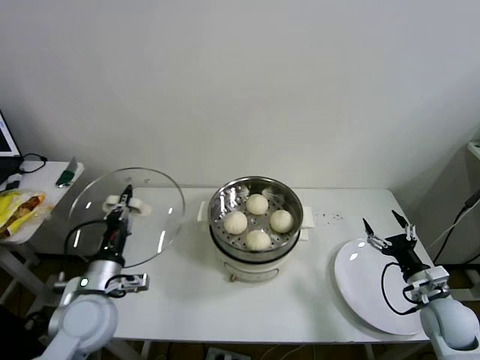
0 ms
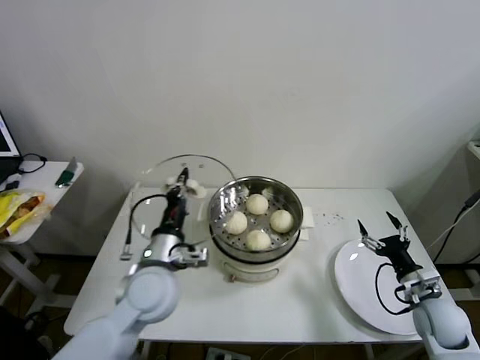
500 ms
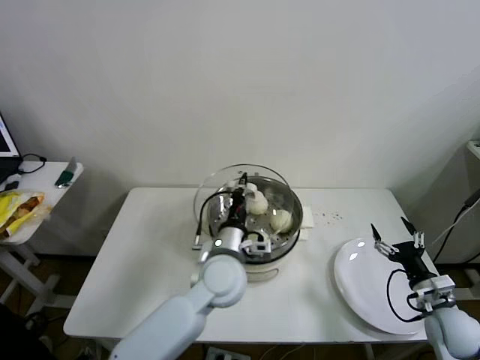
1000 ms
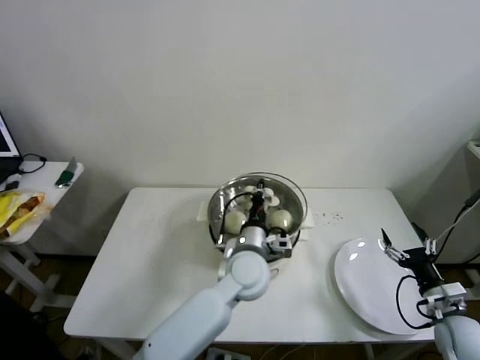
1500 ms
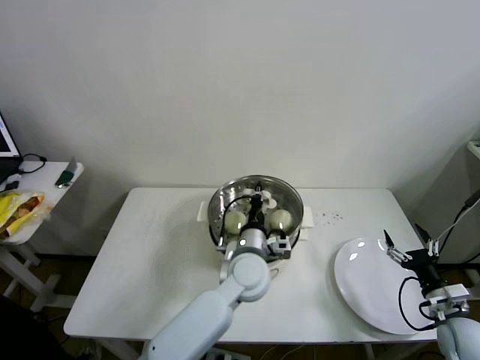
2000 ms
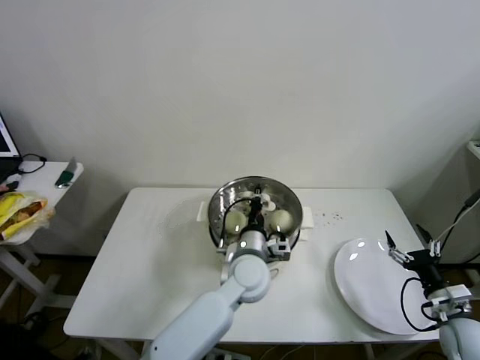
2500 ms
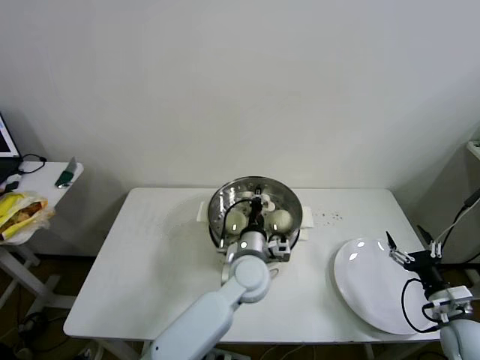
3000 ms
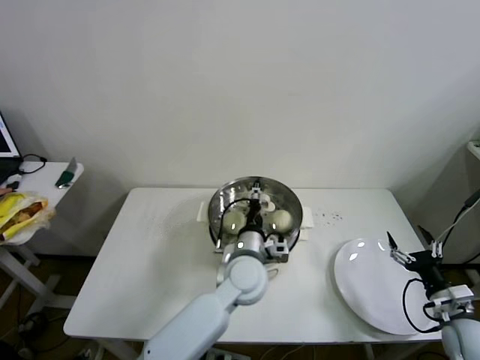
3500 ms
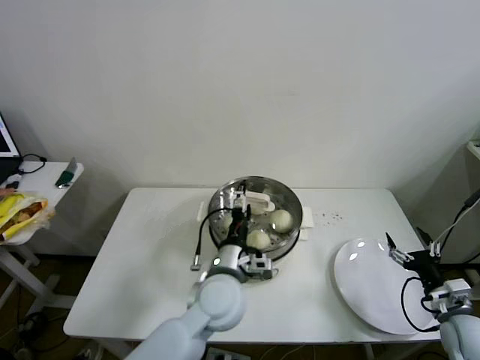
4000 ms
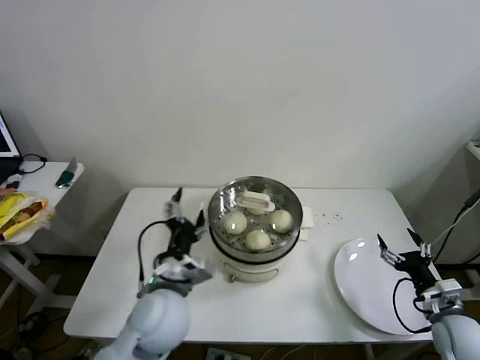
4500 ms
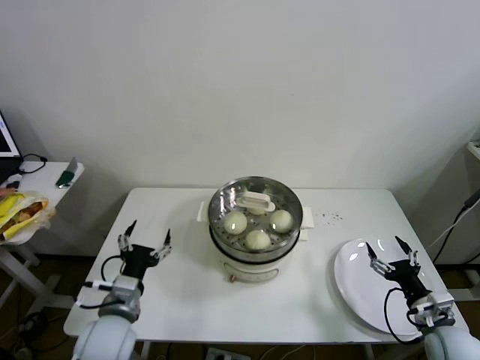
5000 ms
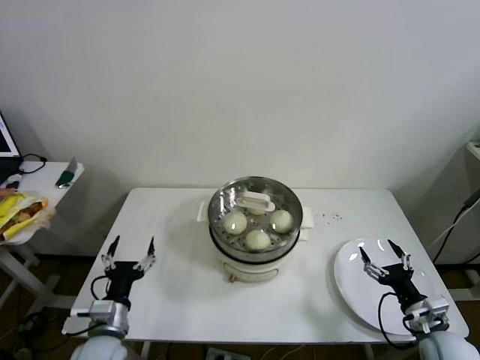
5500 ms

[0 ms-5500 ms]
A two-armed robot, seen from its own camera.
Step, 0 ms to 3000 ms: Place the pot lid on the steamer with left gripper.
0 ms to 2000 ms: The left gripper is displaced to the right by roughly 30 cm.
2000 ms to 3500 ms: The left gripper opens.
3500 ms to 5500 ms: The right gripper goes approximately 5 cm to the left, while the left gripper moves to the left and backward, some 30 cm, and opens its fingers.

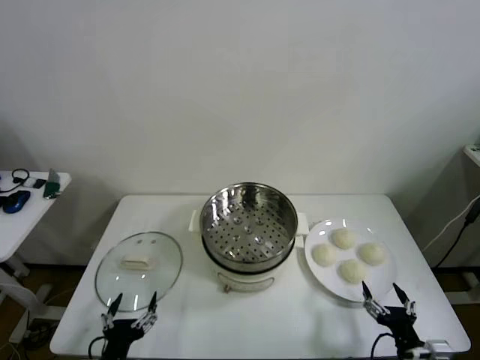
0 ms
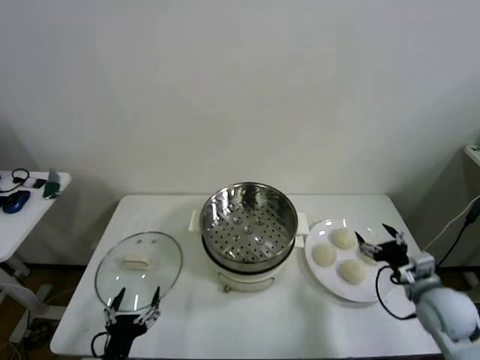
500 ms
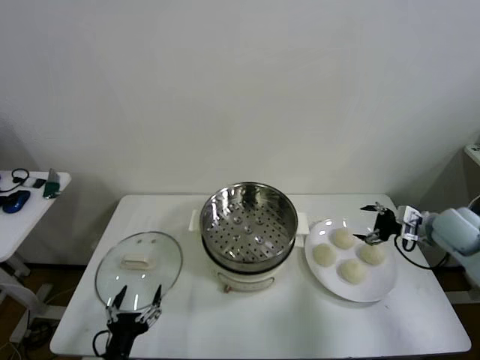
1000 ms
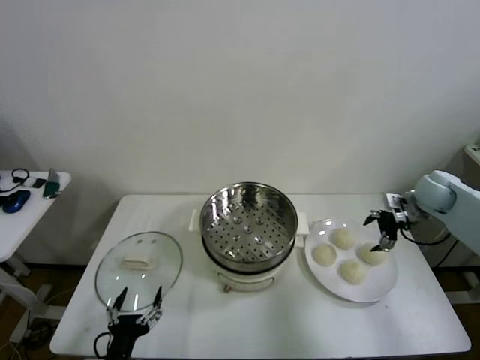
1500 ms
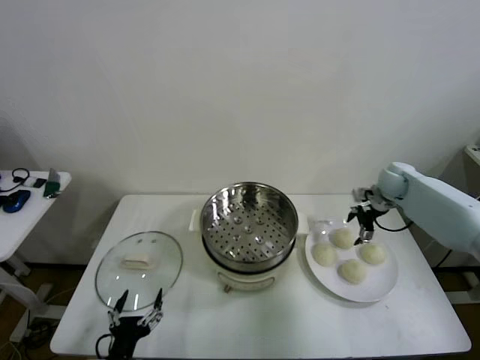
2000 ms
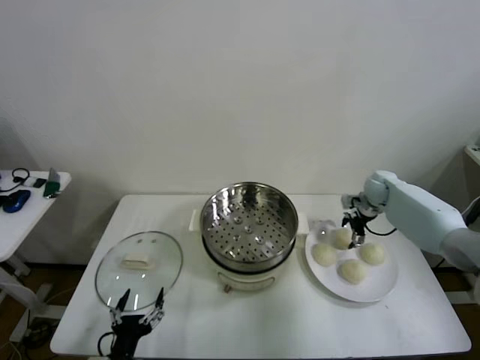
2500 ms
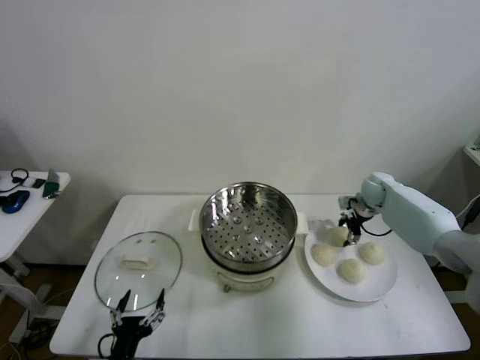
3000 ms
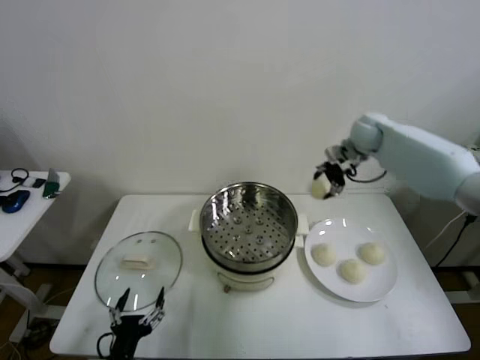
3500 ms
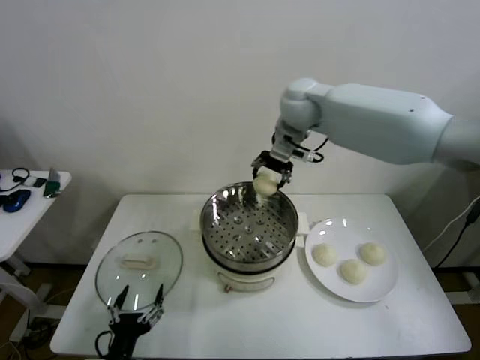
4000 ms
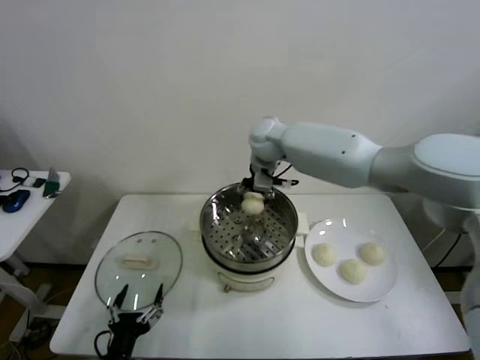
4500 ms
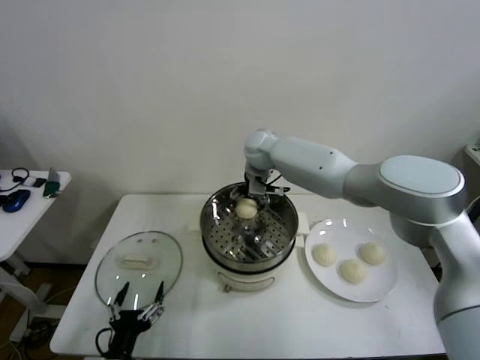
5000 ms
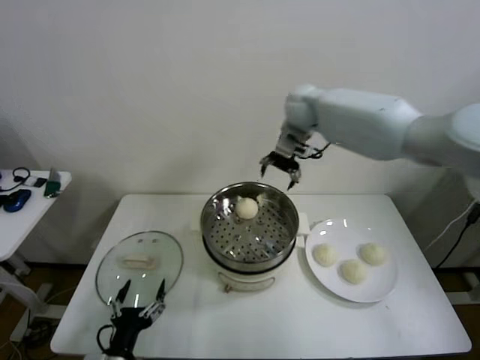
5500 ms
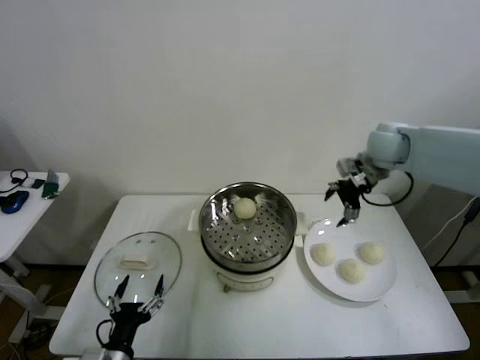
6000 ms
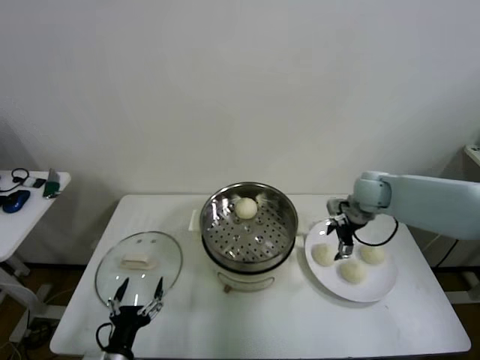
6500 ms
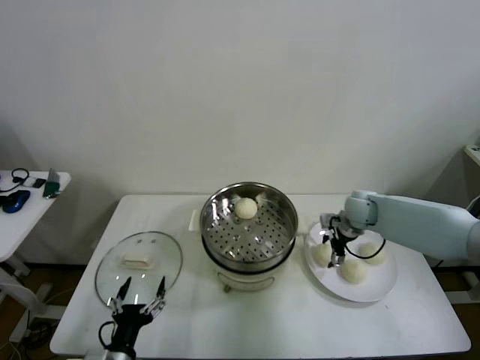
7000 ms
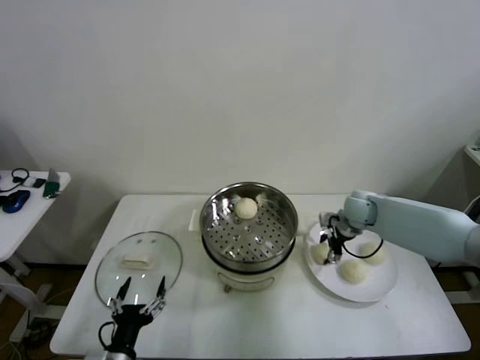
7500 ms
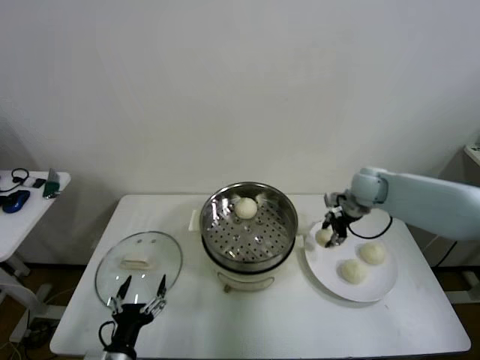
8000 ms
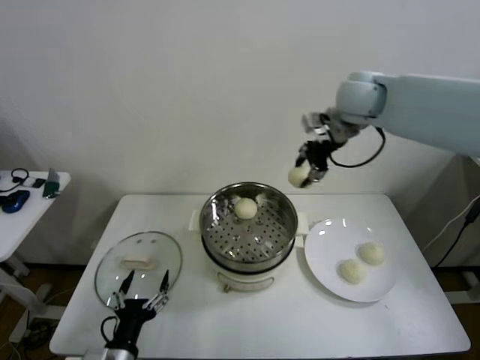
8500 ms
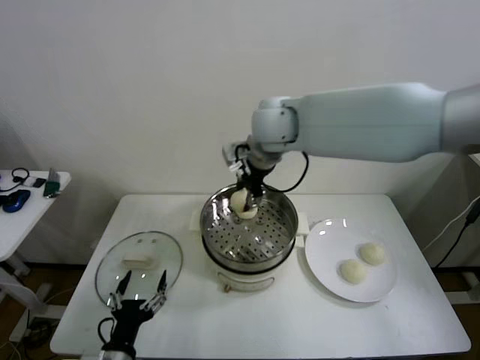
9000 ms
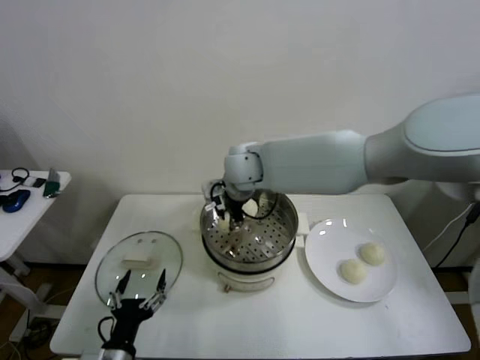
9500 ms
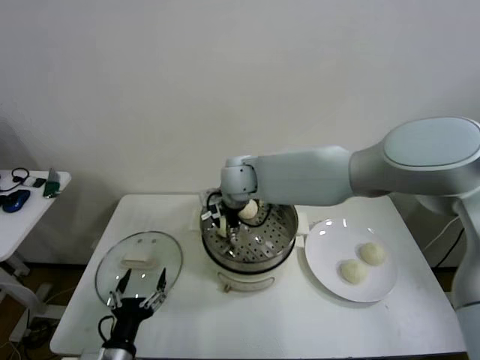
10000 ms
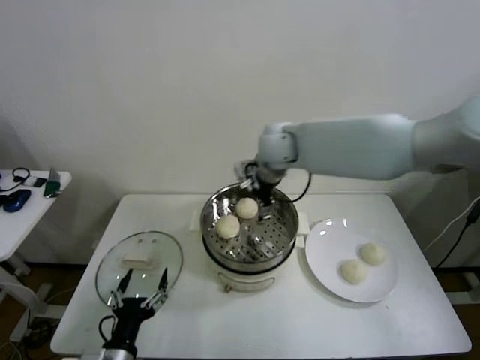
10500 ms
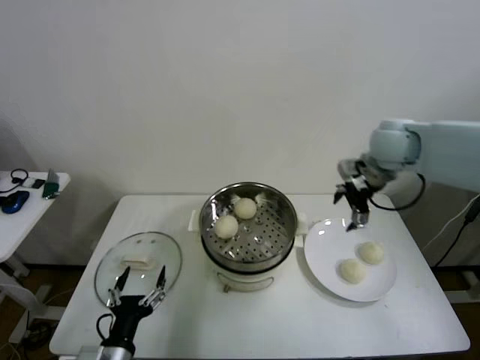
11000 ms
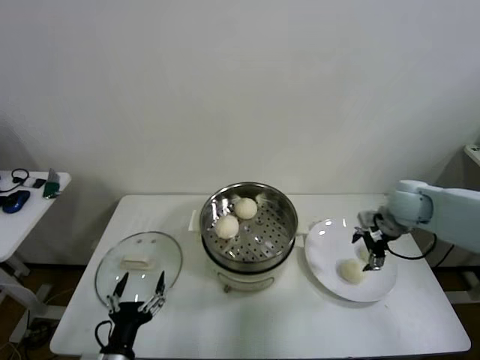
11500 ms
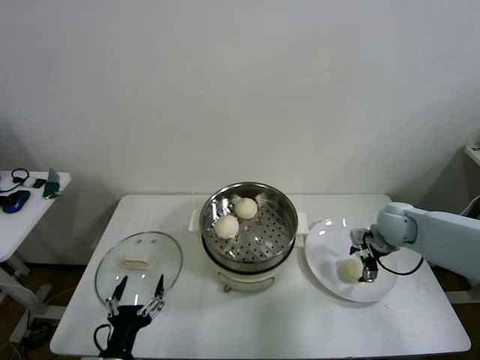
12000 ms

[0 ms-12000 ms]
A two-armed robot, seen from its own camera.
Step, 0 ms to 2500 ms: Grasp the baozi in the plate with right gripper.
Step, 3000 ms to 5000 ms: Place the baozi on the steamer with right gripper.
Step, 5500 ms to 7000 ms: Grasp the baozi in the plate with right gripper.
Step, 7500 ms to 10000 ms: Place the baozi on the steamer with right gripper.
2000 ms to 4000 ms: The right gripper travels to the left and upward by roughly 40 cm, and closes its fingers.
4000 ms to 6000 ms: The right gripper heads to the right and downward, covering some 25 cm, and opens its fingers.
6000 ms to 8000 ms: The right gripper is displaced downward by approximately 5 cm, and closes its fingers.
8000 ms to 10000 ms: The right gripper heads to the left, covering some 30 cm, and opens up.
10000 ms to 12000 ms: The right gripper is displaced to the right by approximately 35 cm, and opens up.

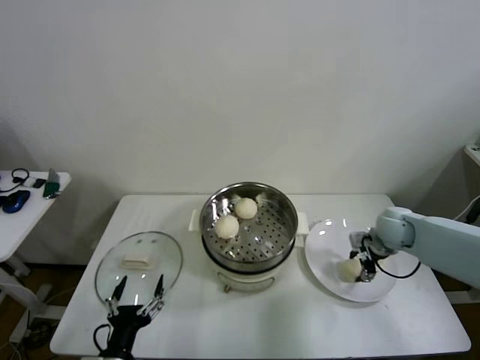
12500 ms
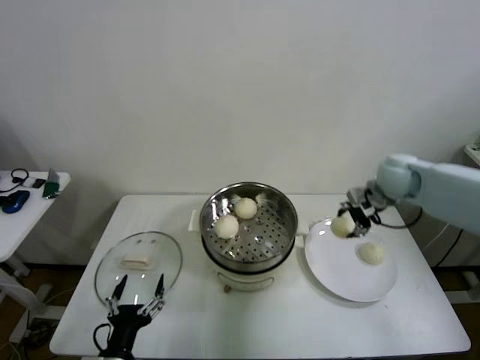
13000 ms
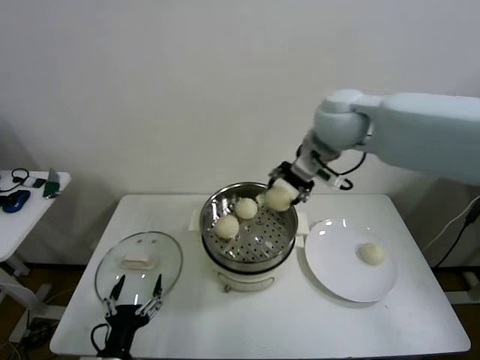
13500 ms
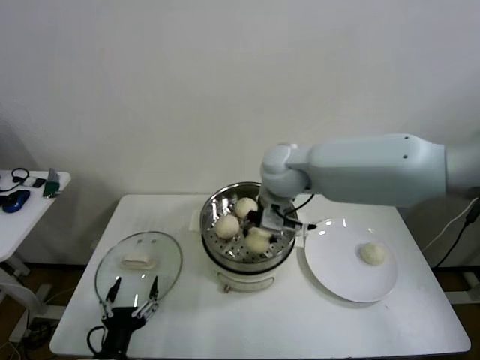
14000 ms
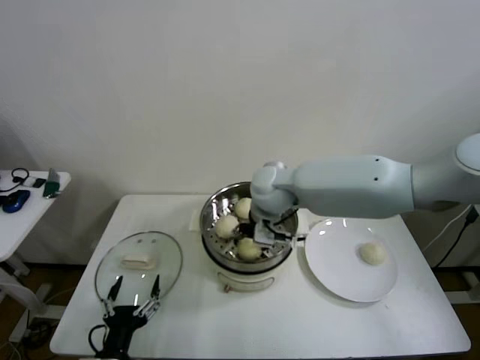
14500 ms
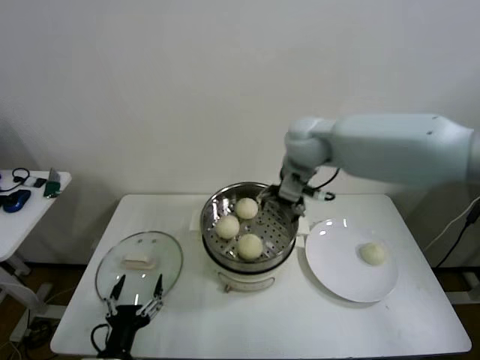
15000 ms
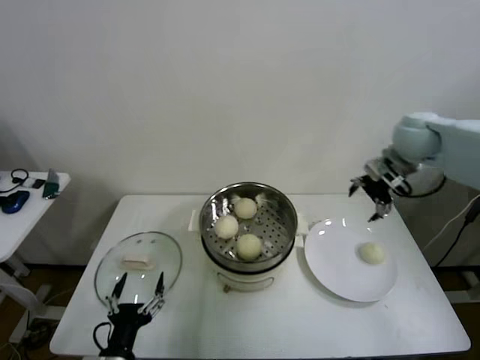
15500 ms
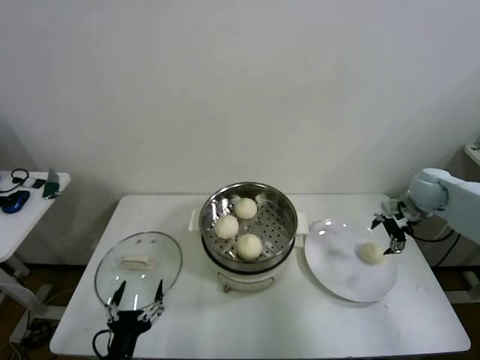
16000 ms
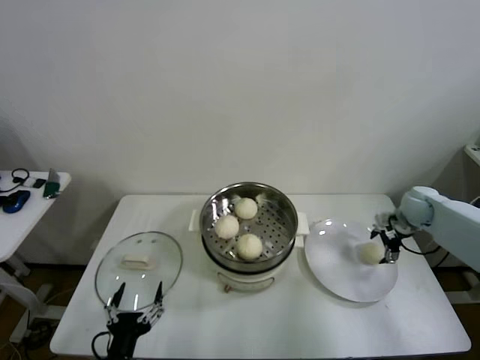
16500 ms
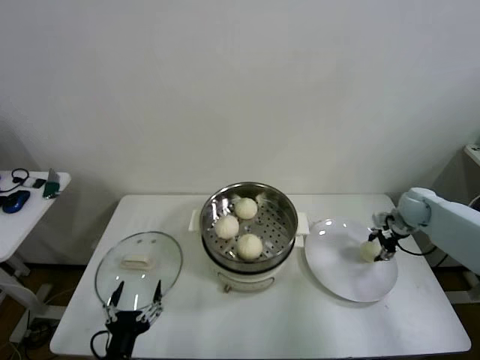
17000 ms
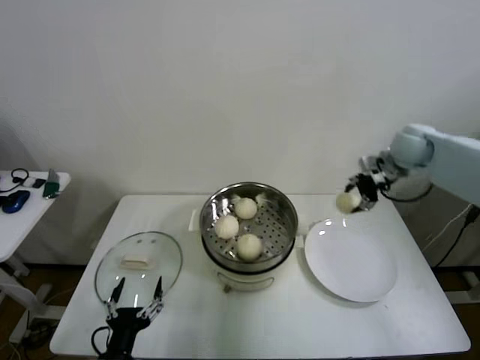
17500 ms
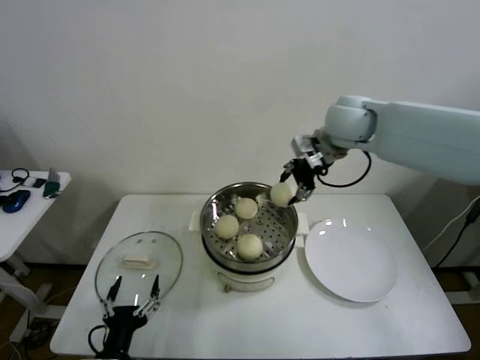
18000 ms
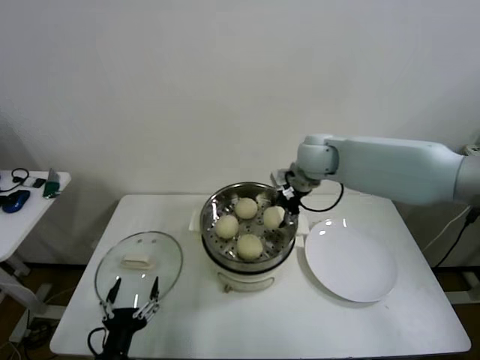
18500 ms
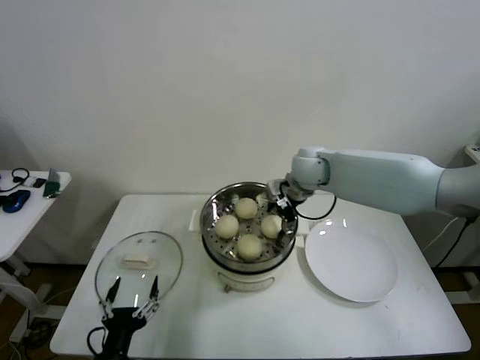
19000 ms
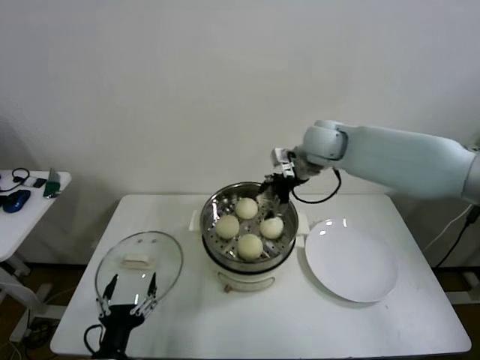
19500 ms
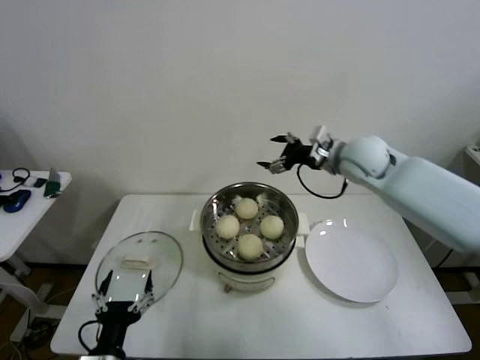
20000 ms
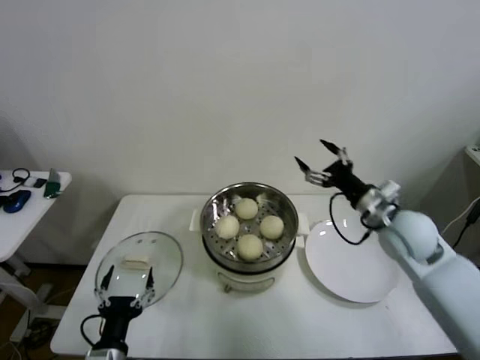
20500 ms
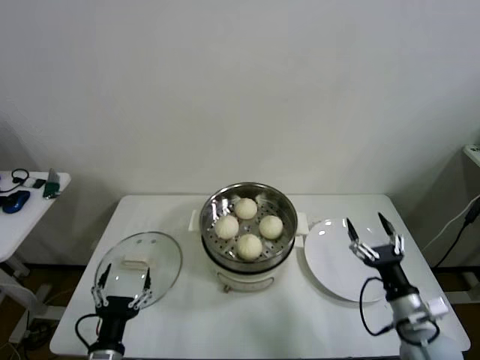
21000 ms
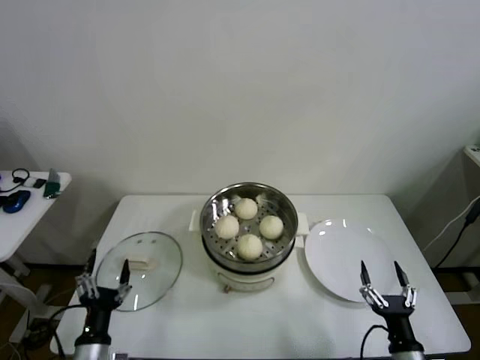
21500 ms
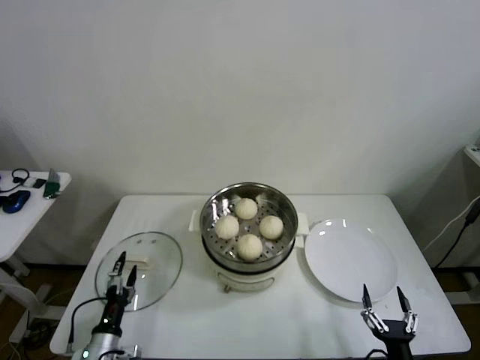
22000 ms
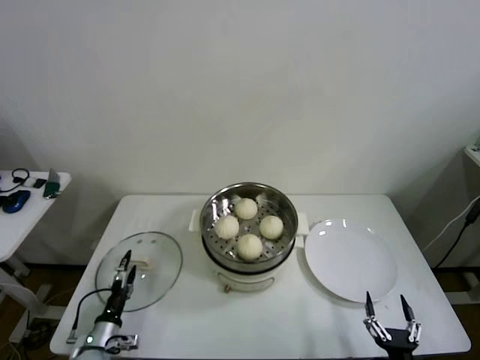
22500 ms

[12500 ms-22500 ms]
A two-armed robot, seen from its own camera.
Step, 13000 ms to 14500 ms: Place the baozi on the steamer with right gripper.
Step, 15000 ms to 16500 ms: Grasp the baozi in the plate with right gripper.
Step, 17000 ms to 18500 ms: Place the baozi on the steamer with right gripper.
12500 ms to 14500 ms: The right gripper moves to the left and upward, roughly 35 cm, and opens its fingers.
14500 ms to 16500 ms: The right gripper shifts approximately 40 cm to the right.
16500 ms to 18500 ms: The right gripper heads to the left and upward, covering some 35 cm, and closes.
18500 ms to 20500 ms: The right gripper travels to the right, backward and downward by roughly 25 cm, and opens.
20500 ms to 22500 ms: The right gripper travels backward and downward by approximately 40 cm. The left gripper goes some 20 cm downward, to the left and forward.
